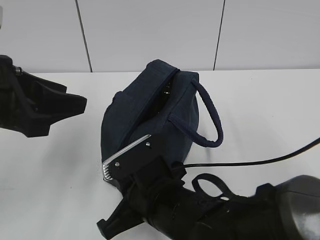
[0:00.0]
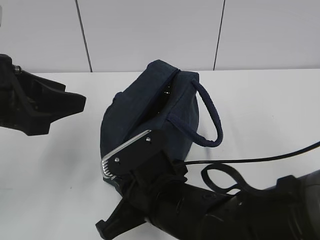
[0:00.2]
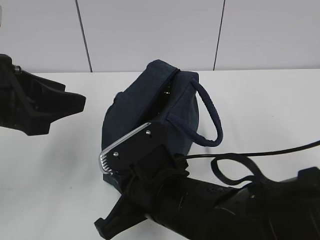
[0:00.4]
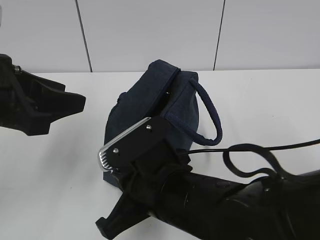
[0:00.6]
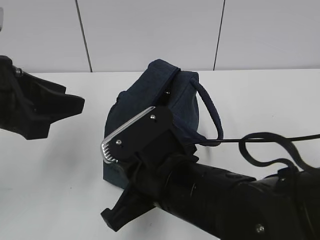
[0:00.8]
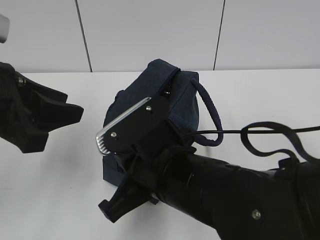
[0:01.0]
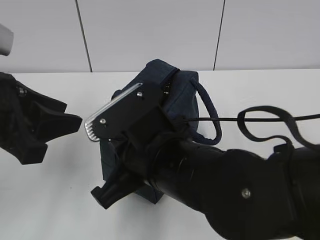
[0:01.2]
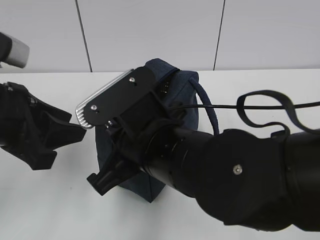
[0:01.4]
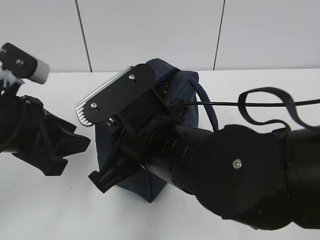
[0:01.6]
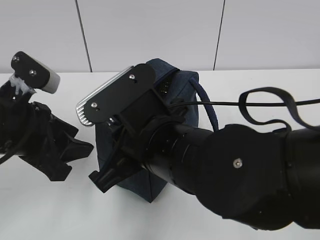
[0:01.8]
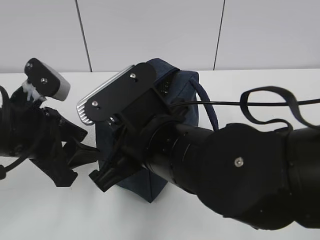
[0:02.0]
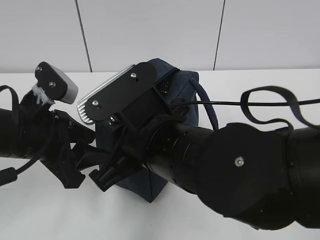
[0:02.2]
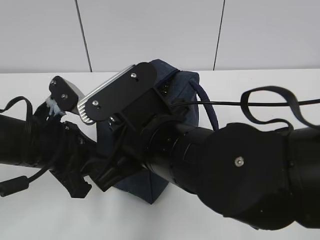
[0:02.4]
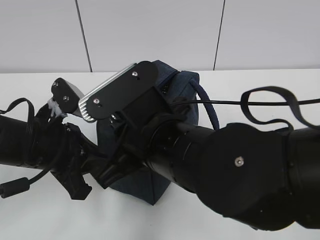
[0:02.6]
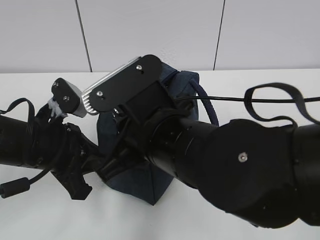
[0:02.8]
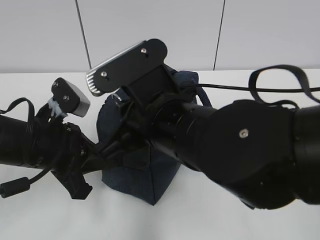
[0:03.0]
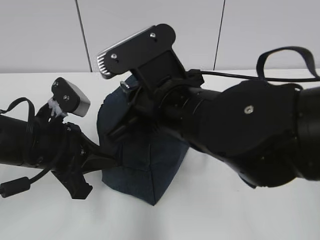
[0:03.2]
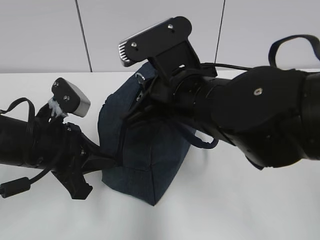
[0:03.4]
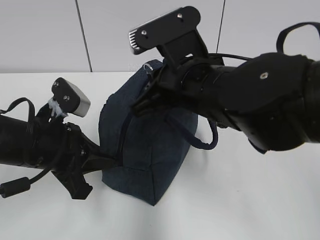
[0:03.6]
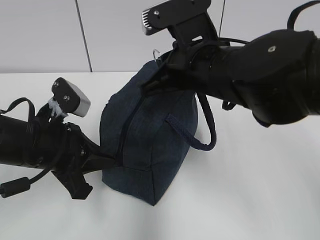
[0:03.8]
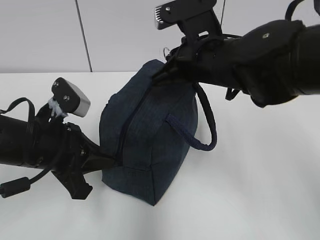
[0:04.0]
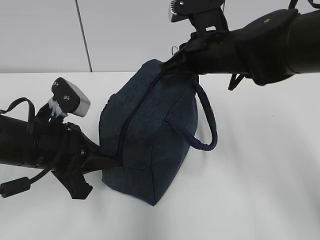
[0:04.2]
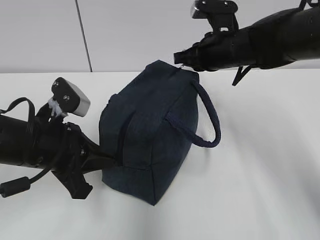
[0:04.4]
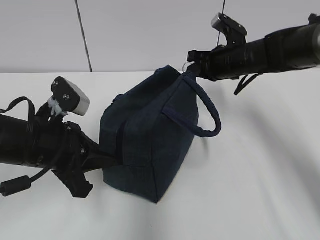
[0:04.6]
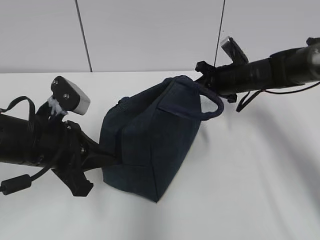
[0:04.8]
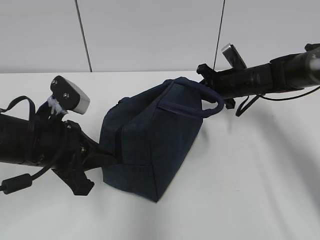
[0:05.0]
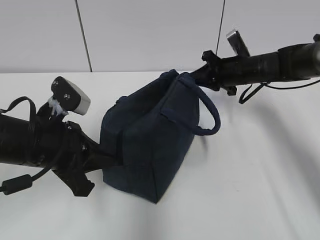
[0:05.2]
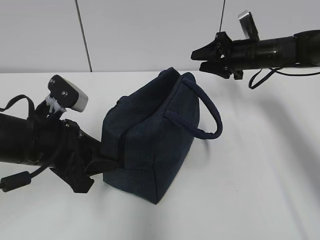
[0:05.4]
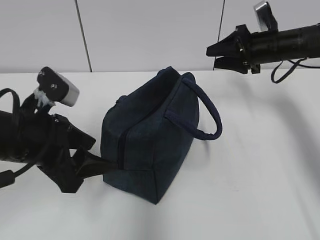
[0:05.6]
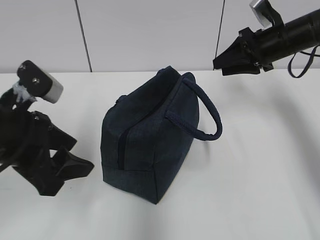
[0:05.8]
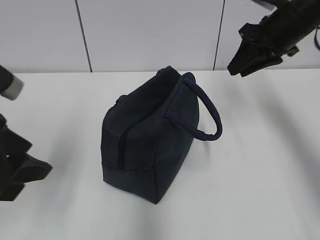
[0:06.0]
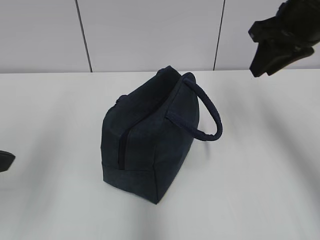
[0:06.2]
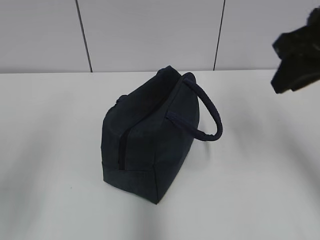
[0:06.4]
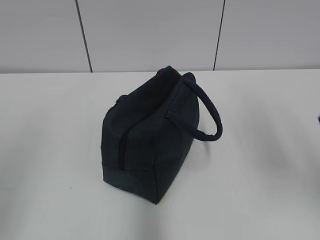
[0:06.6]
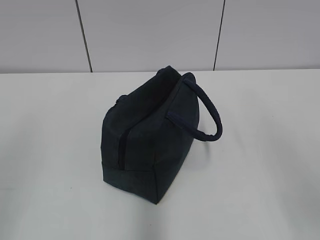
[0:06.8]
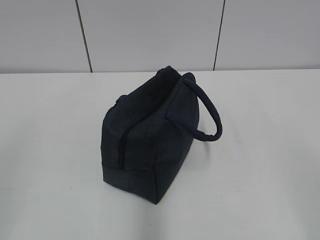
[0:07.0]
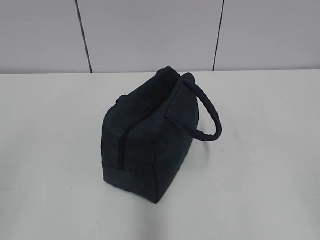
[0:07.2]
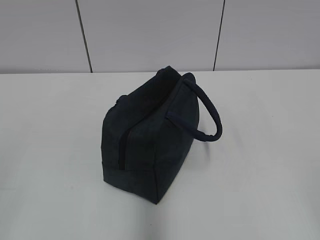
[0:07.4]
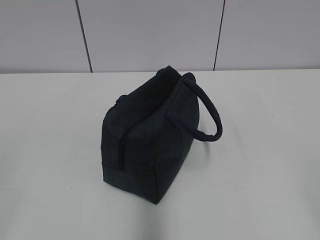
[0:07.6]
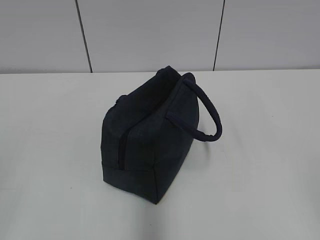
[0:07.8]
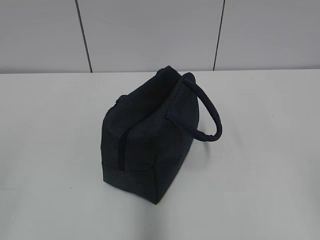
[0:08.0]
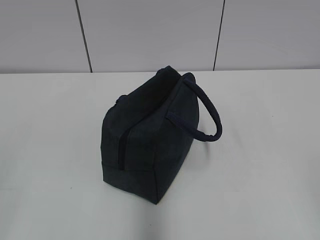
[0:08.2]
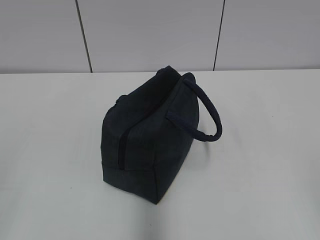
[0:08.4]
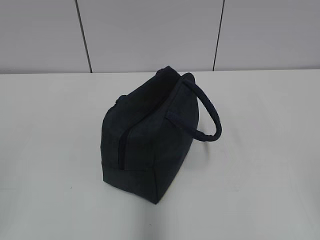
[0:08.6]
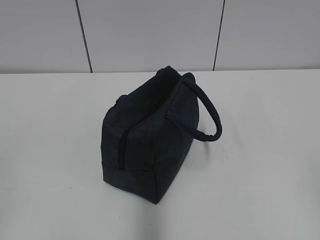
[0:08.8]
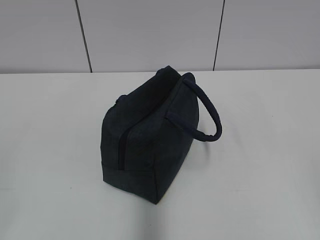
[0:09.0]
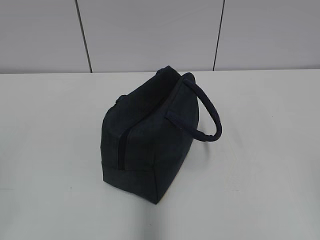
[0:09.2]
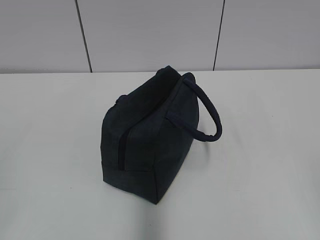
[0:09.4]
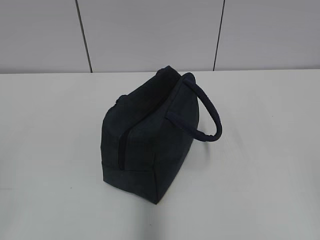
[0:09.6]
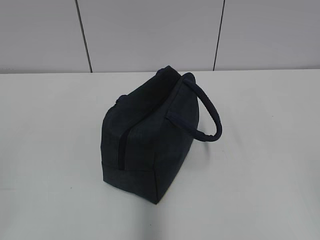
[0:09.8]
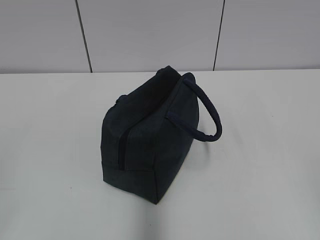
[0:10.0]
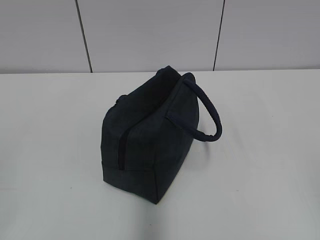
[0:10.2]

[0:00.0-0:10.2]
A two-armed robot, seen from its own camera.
Step, 0:00.0 to 0:05.0: Pull the zipper with your right hand.
0:00.0 to 0:01.4: The right gripper is displaced upward by approximately 10 cm.
0:01.4 to 0:03.0: The left gripper heads downward, covering roughly 5 cm, and closes its fingers.
0:03.0 to 0:04.4: The right gripper shifts approximately 25 cm forward and to the right.
0:04.4 to 0:05.8: The left gripper heads upward, covering about 5 cm, and opens its fingers, while the right gripper goes roughly 10 cm to the right, reaches some 10 cm downward, then returns, and opens its fingers.
0:05.8 to 0:07.2: The right gripper travels backward by approximately 50 cm, while the left gripper shifts roughly 25 cm backward and to the left.
